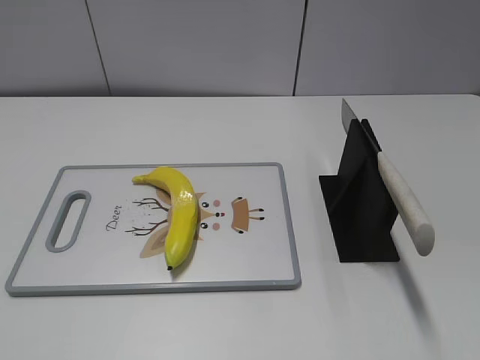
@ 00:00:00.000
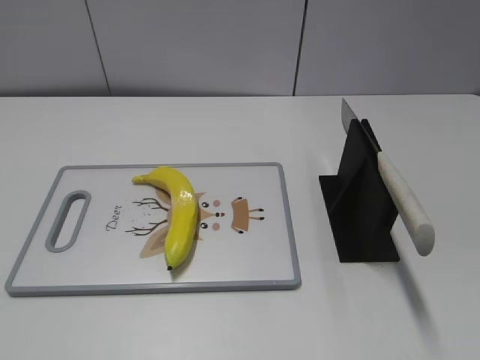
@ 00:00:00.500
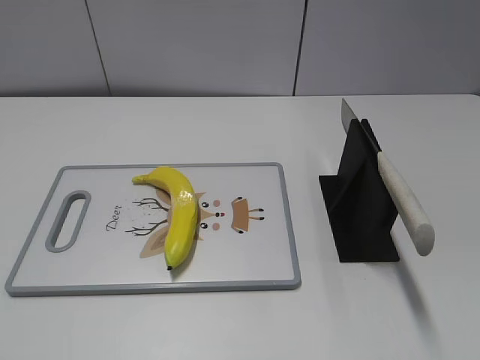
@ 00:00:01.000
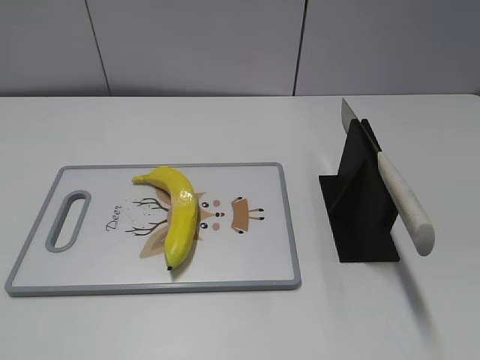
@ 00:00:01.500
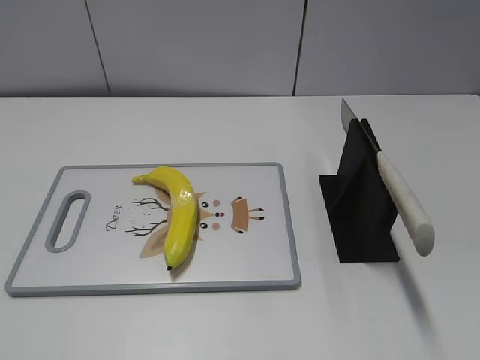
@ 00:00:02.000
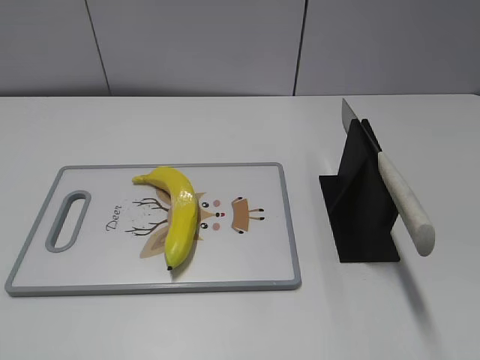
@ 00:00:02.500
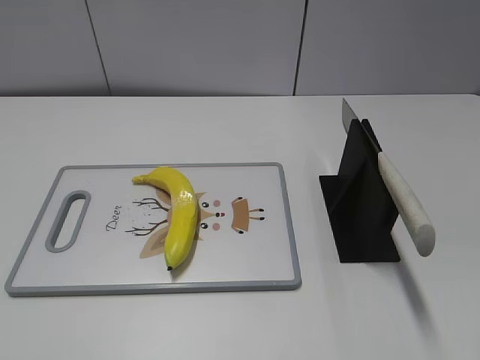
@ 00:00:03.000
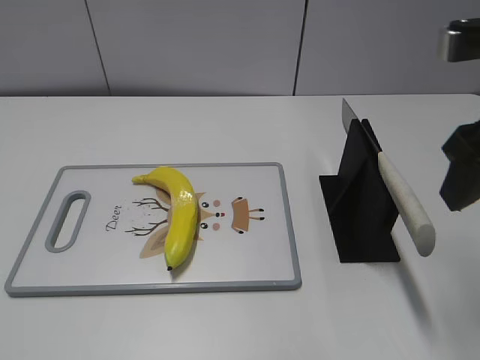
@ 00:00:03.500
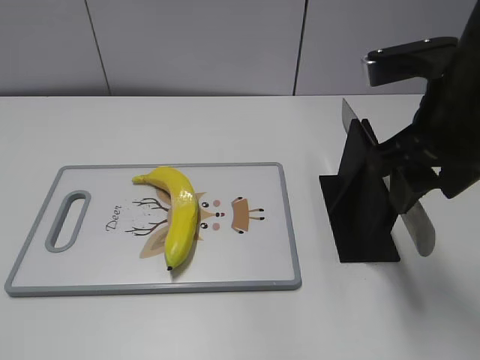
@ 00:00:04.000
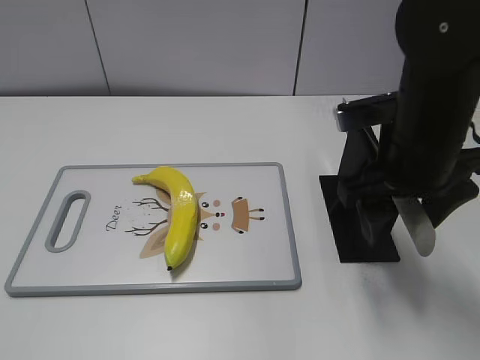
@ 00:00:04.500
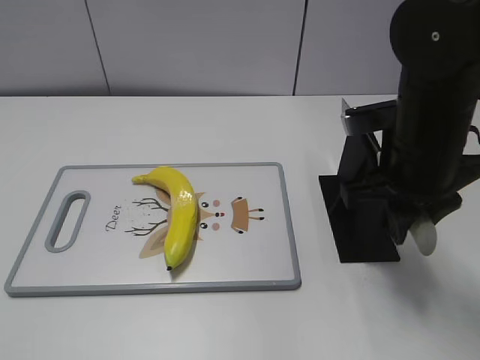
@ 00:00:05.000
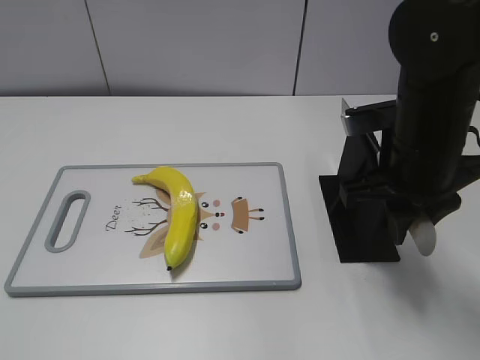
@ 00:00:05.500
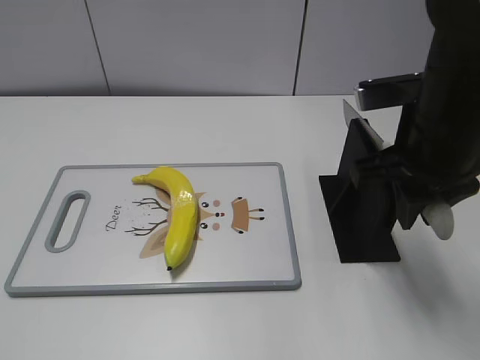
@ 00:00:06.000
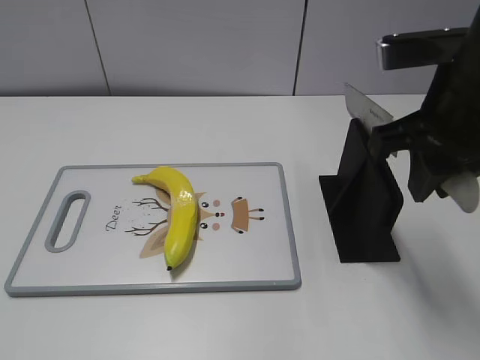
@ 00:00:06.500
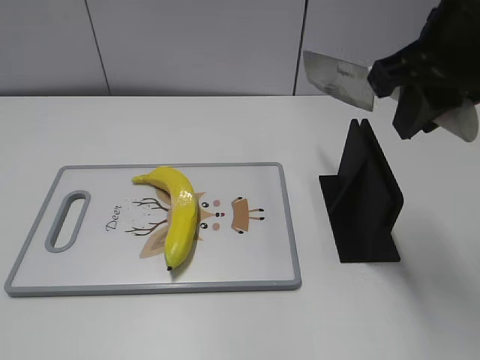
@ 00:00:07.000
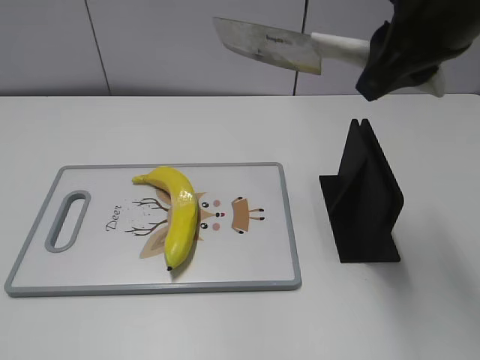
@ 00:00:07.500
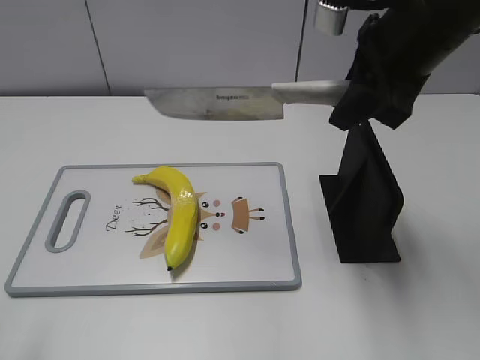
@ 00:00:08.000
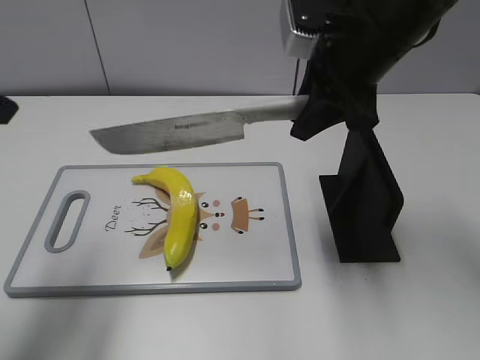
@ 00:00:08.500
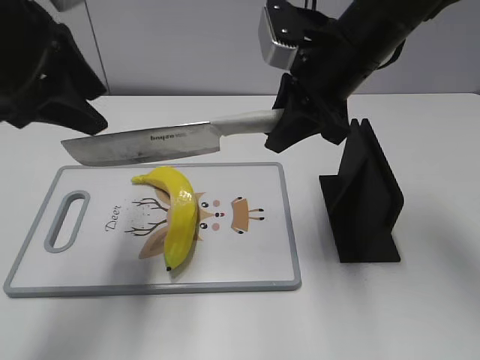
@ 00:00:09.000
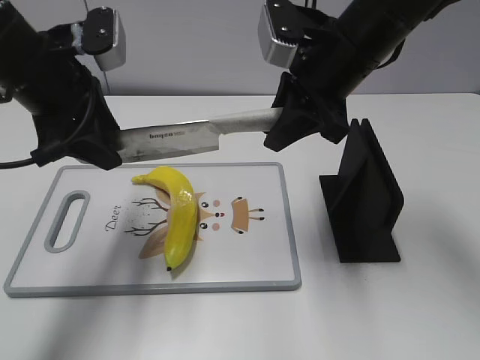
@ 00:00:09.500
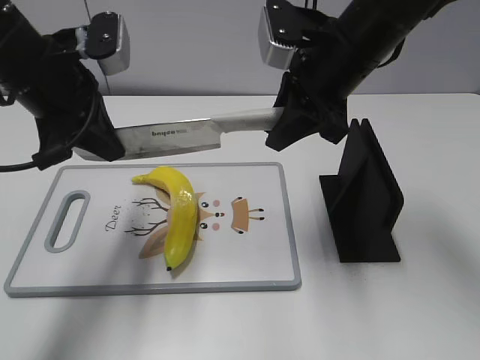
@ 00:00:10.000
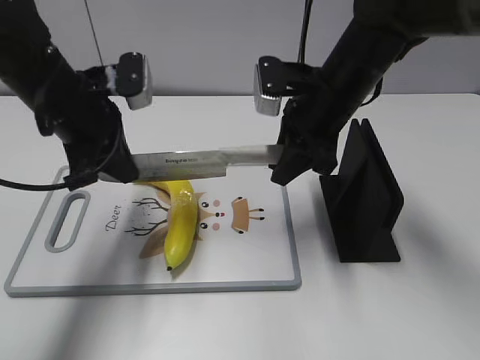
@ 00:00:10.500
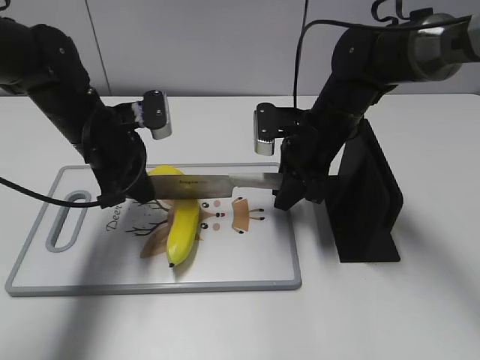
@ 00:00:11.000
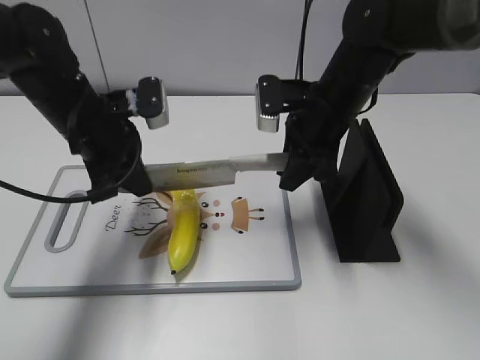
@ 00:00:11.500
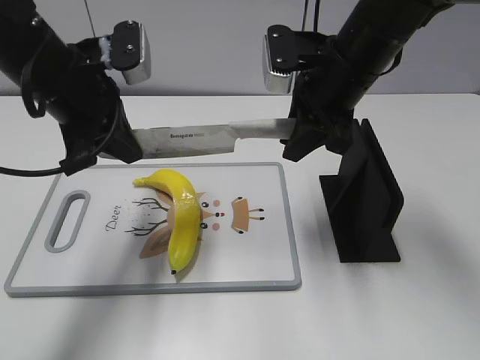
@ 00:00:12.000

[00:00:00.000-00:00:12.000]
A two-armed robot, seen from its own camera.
Task of the whole recording: cut plastic banana.
Step, 00:00:00.000 to 00:00:06.500: Grab the knife handle with your right hand.
00:00:02.000 to 00:00:04.000: The right gripper is displaced forward and to the left by some 25 cm.
00:00:04.000 to 00:00:06.000: The right gripper closes its fingers.
00:00:06.000 to 00:00:08.000: The left gripper heads forward, covering some 5 cm; the right gripper heads upward, covering roughly 5 cm.
00:00:08.000 to 00:00:10.000: The right gripper is displaced downward by approximately 5 cm. Meanwhile the left gripper goes approximately 25 cm forward and to the right, and closes its fingers.
00:00:10.000 to 00:00:12.000: The right gripper travels downward and back again, some 15 cm each way. The left gripper moves about 10 cm downward and comes back.

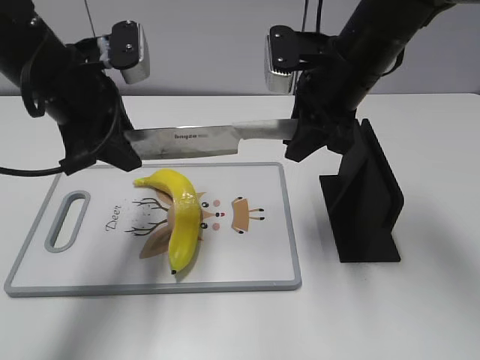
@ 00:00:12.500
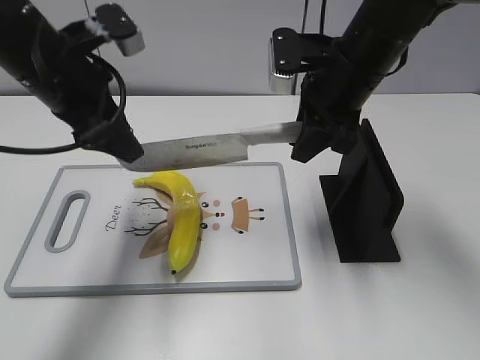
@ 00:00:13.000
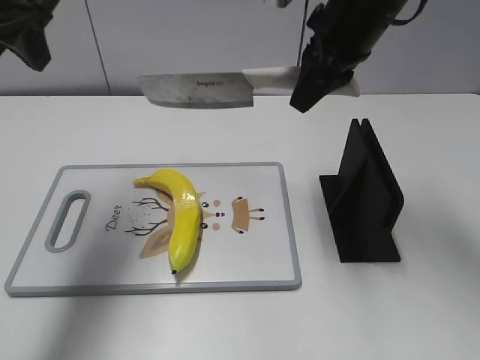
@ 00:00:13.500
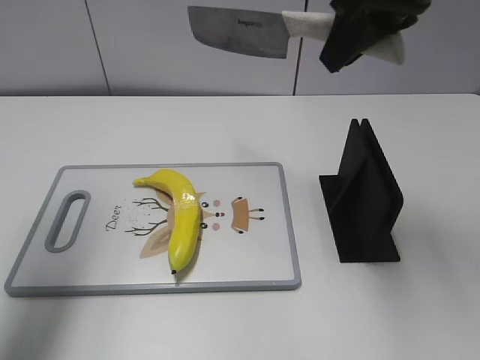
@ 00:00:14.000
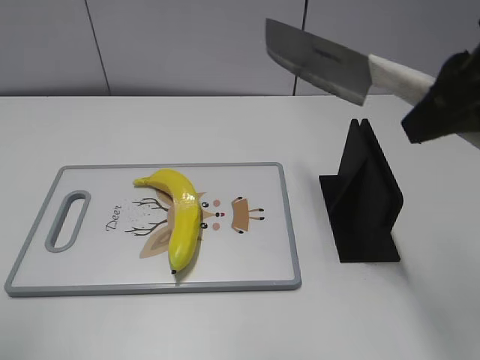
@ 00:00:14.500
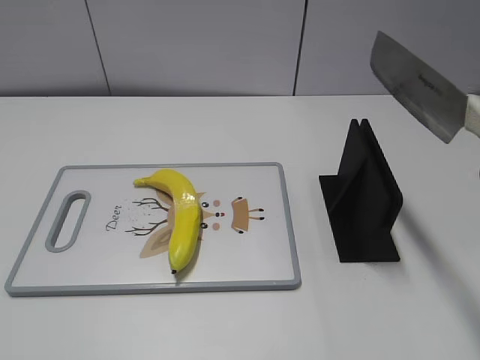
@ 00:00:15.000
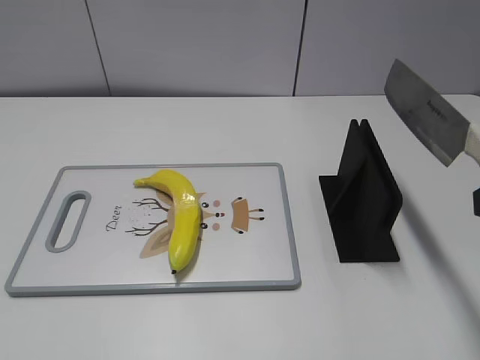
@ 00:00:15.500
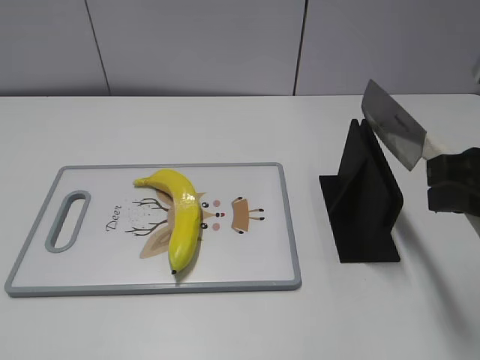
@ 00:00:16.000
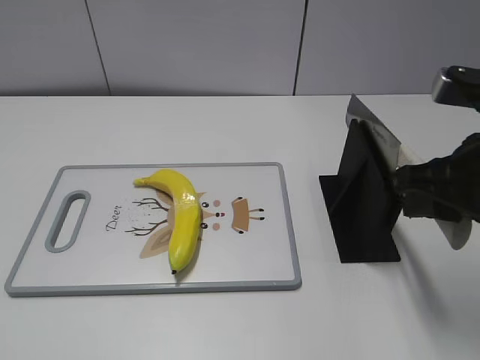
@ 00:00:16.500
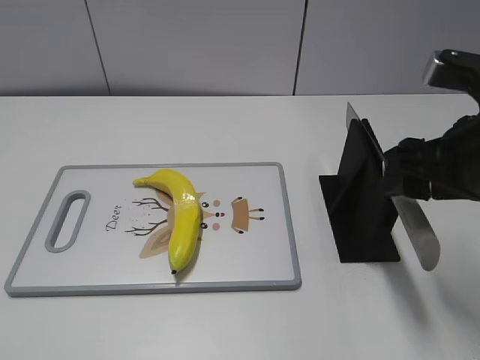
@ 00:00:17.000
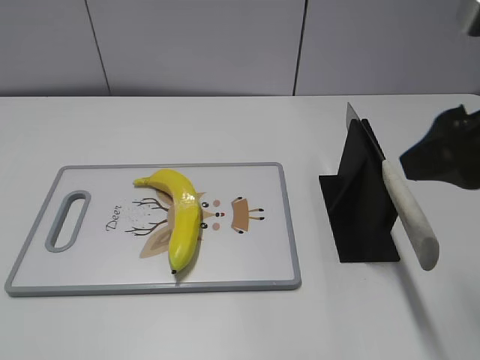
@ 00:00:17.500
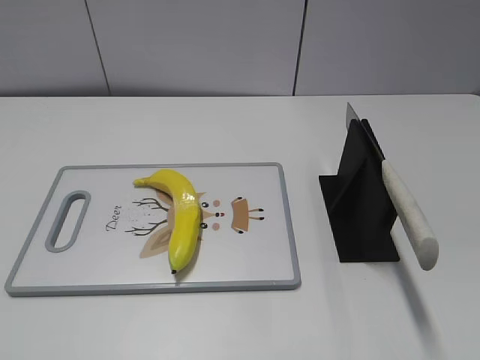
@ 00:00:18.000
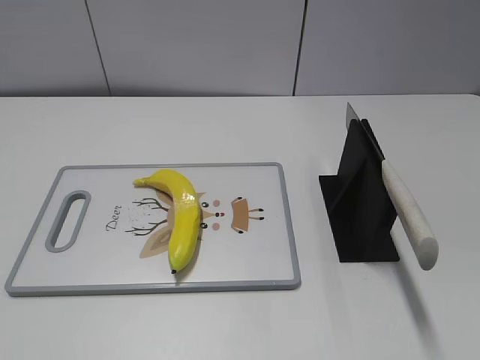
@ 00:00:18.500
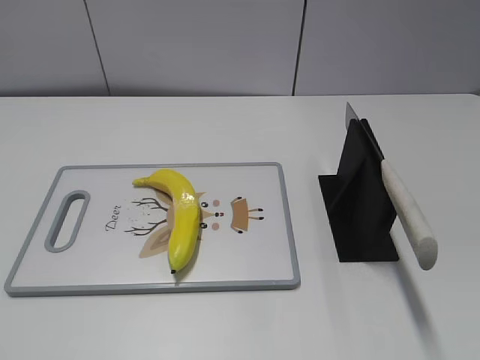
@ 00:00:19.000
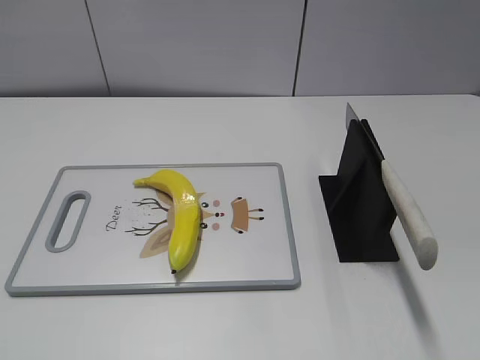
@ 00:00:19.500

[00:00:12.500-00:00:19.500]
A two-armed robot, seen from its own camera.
Task of the whole recording: cut plastic banana.
Step, 00:00:13.000 to 00:00:14.000: Cut the banana with your right hand.
Step, 00:00:14.500 to 00:00:16.000: Lift the knife with your right hand.
Step, 00:00:16.500 to 00:00:19.500: Place the knife on the storage rack with your right hand.
00:00:12.500 to 00:00:14.500: The left gripper is displaced backward, to the left and upward by approximately 25 cm, and opens up. Meanwhile the right gripper is displaced backward, upward and to the right by approximately 20 cm.
00:00:14.500 to 00:00:16.000: The right gripper is displaced downward by approximately 5 cm; the left gripper travels backward and downward by some 15 cm.
00:00:16.000 to 00:00:17.500: The right gripper opens up.
00:00:17.500 to 00:00:19.500: The right gripper goes about 20 cm backward and to the right.
